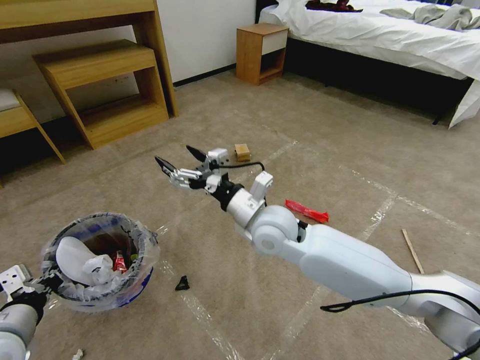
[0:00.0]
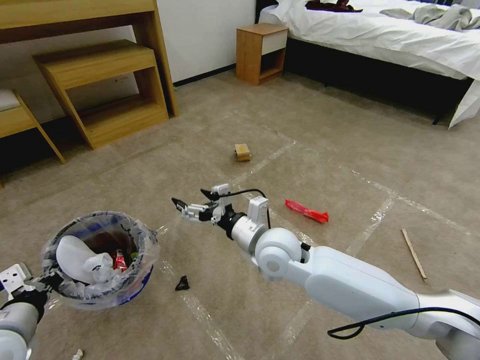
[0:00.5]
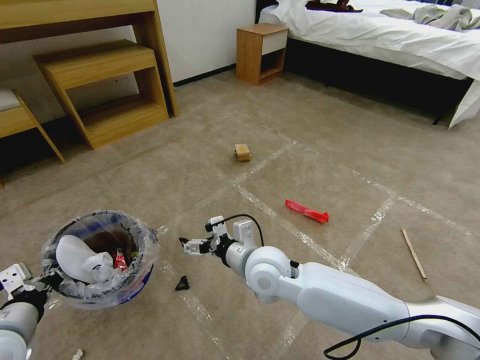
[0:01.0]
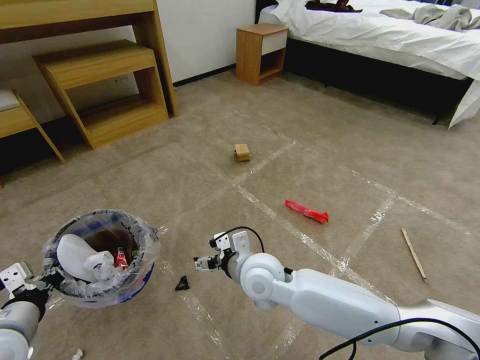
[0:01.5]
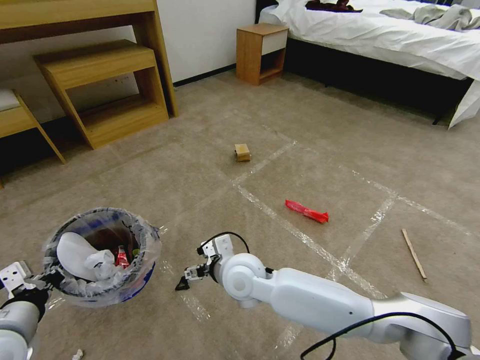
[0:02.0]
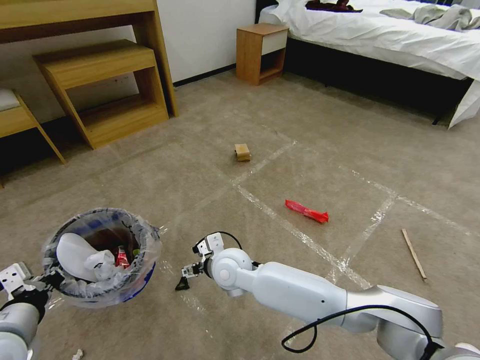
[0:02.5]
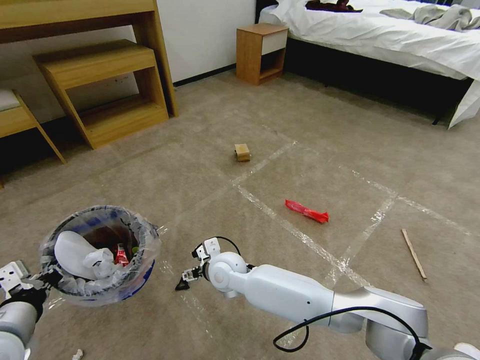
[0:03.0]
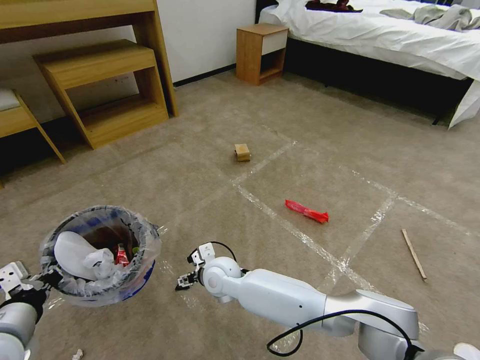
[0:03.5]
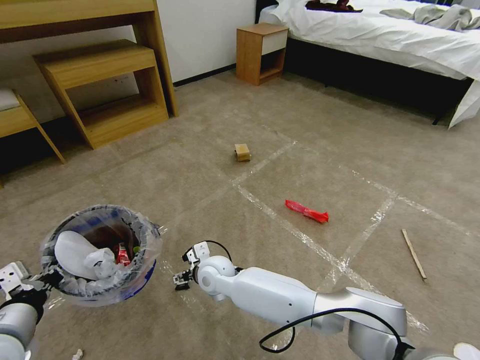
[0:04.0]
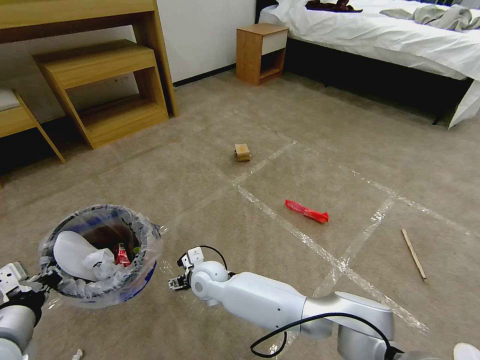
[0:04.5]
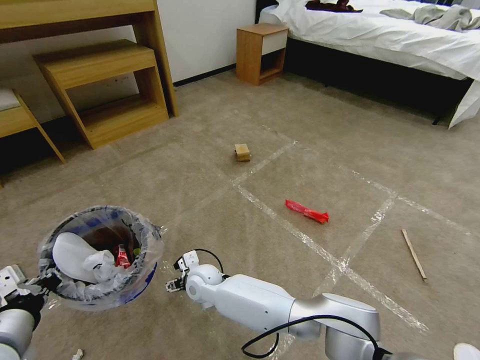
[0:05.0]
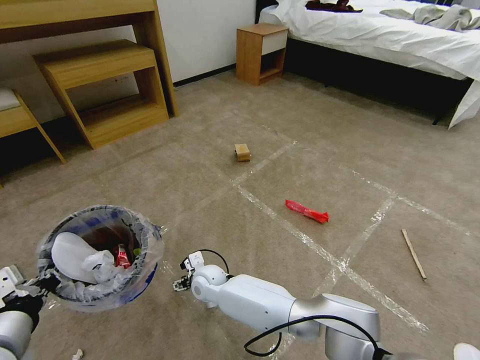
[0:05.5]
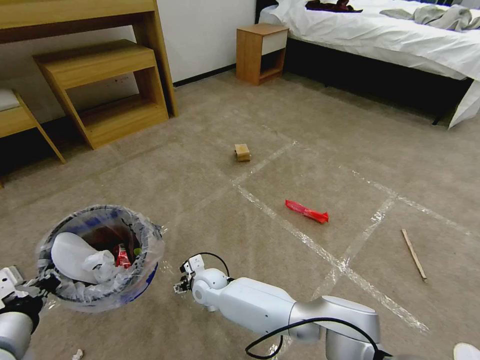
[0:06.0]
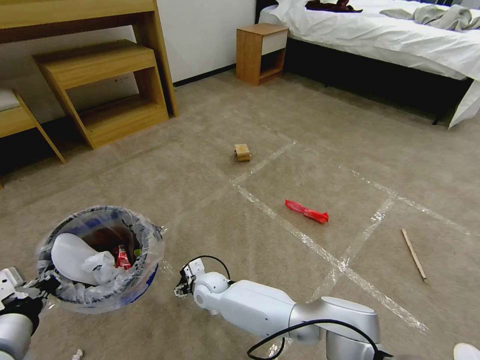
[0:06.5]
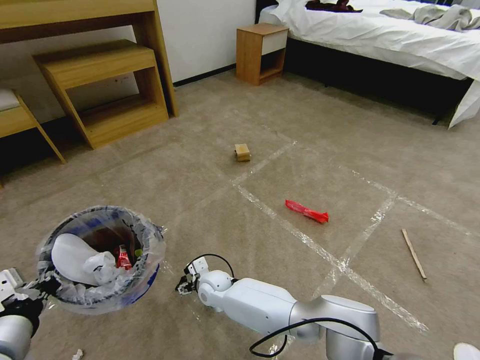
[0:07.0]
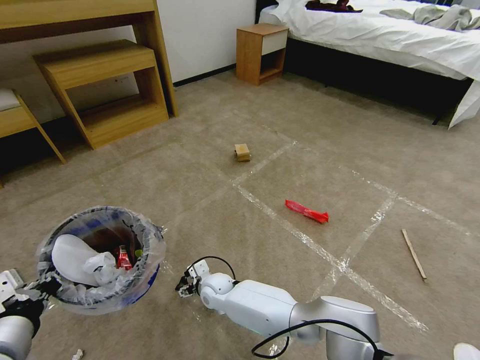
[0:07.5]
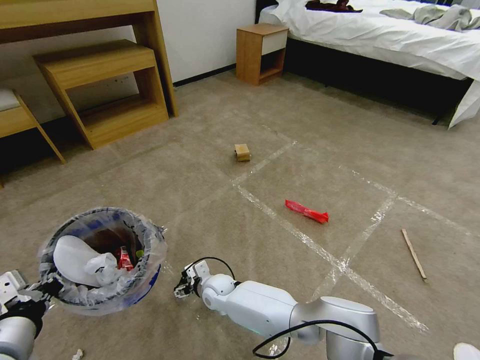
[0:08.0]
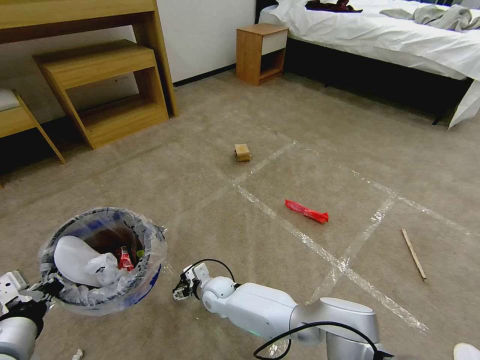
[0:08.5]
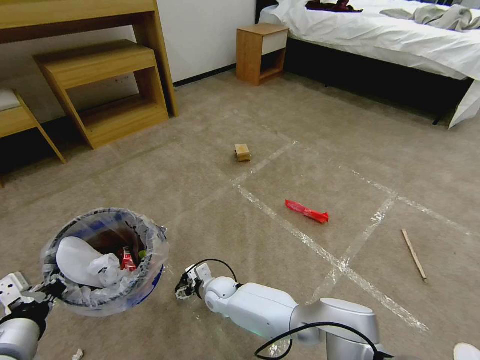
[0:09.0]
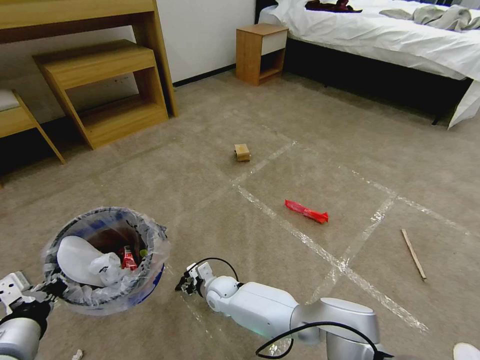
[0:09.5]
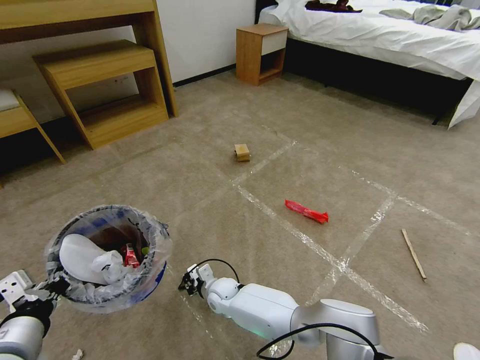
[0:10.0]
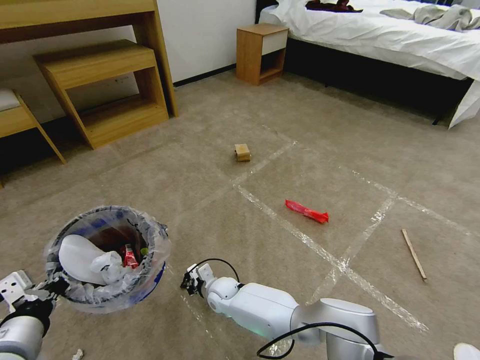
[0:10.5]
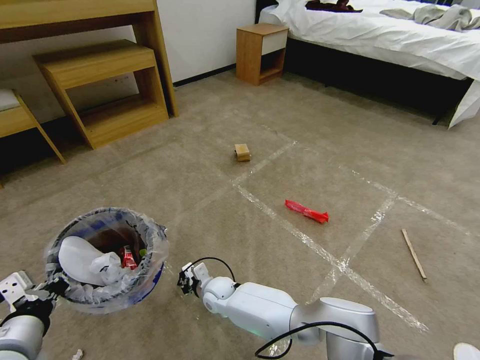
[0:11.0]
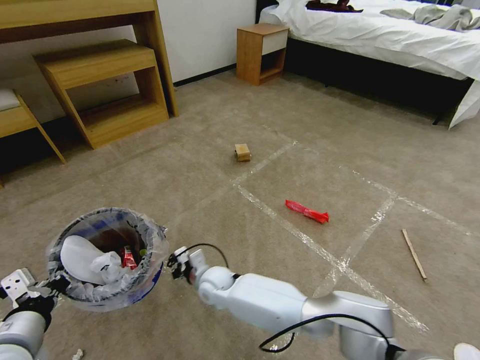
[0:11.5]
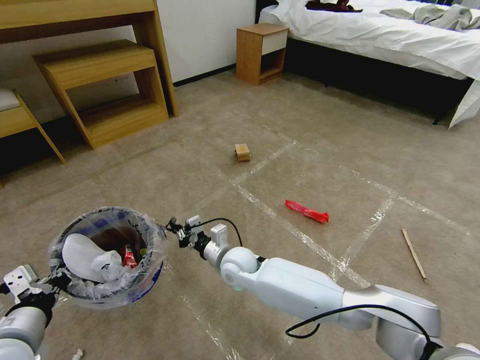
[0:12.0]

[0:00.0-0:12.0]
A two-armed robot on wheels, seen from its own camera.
Task of the whole recording: Pick up the trash bin and place the garbage on the floor into it.
0:00.0 to 0:02.0: The right gripper heads downward, to the left and backward, covering about 15 cm.
0:02.0 to 0:04.0: The right gripper moves downward and to the left, roughly 10 cm.
0:04.0 to 0:06.0: The right gripper heads downward, covering some 5 cm.
0:06.0 to 0:08.0: There are only small adjustments of the grippers.
0:08.0 to 0:10.0: The right gripper closes its fingers.
0:10.0 to 0:12.0: The right gripper moves upward, roughly 15 cm.

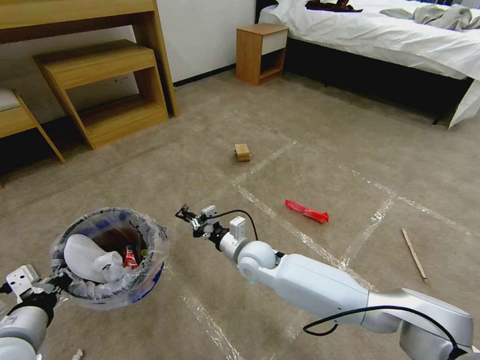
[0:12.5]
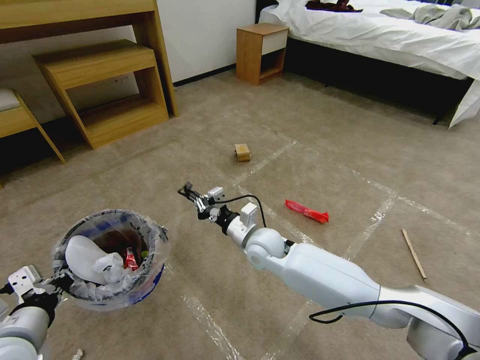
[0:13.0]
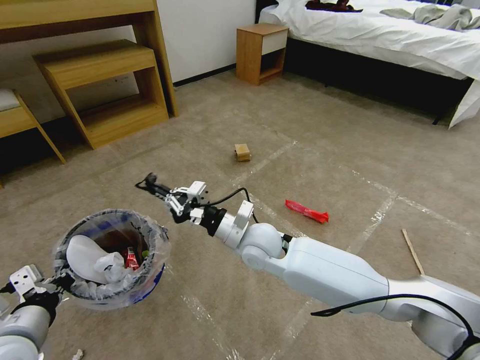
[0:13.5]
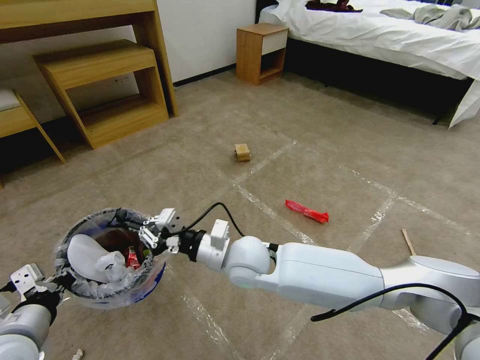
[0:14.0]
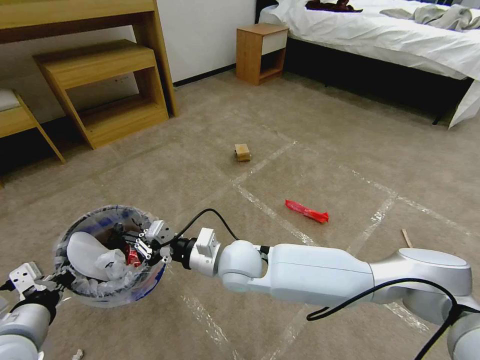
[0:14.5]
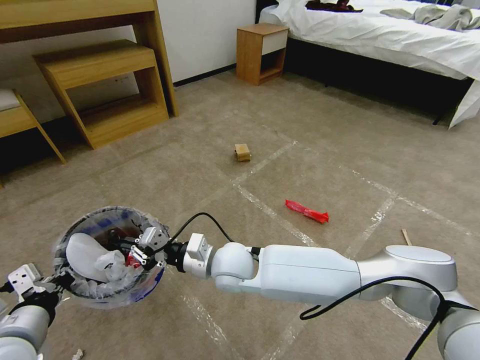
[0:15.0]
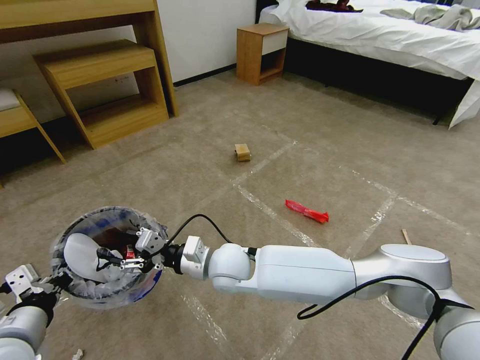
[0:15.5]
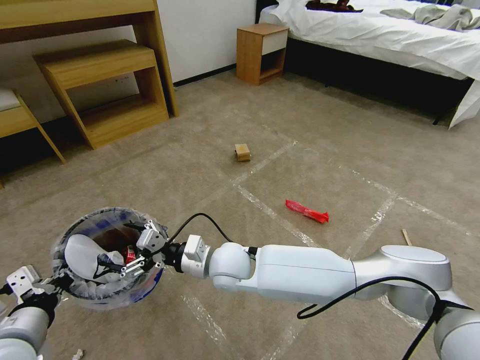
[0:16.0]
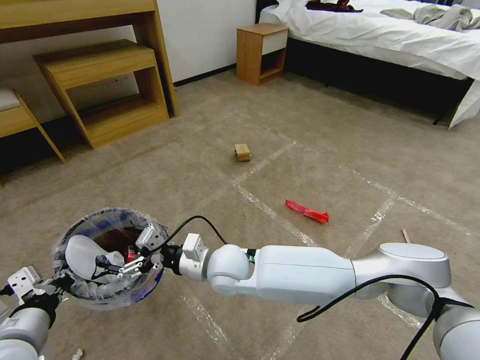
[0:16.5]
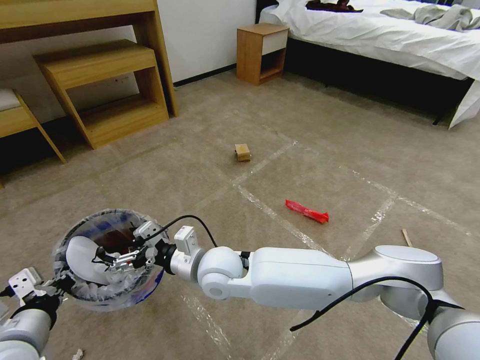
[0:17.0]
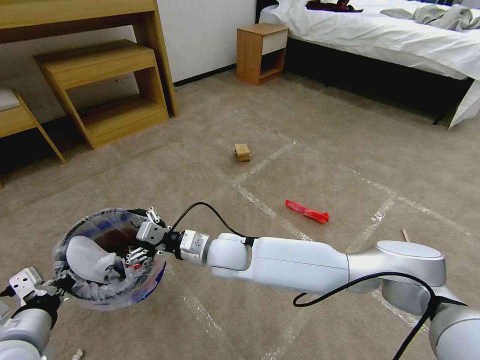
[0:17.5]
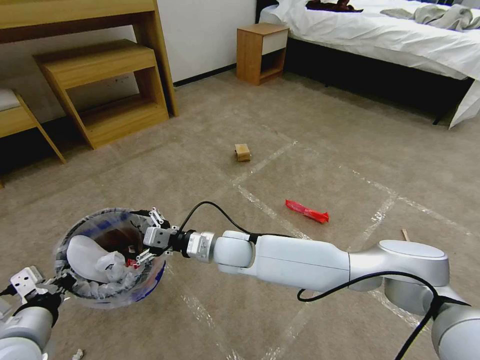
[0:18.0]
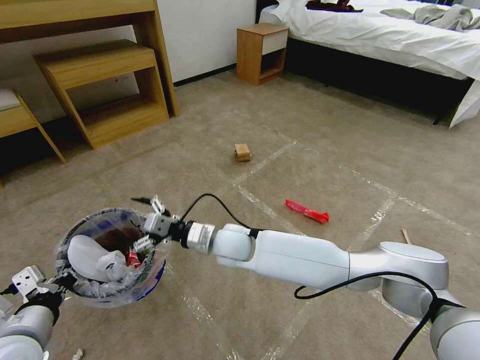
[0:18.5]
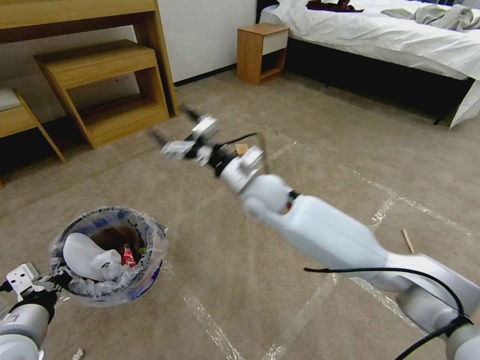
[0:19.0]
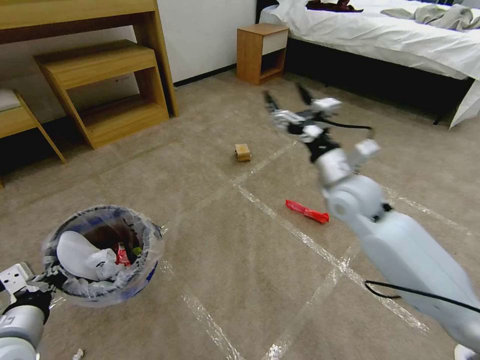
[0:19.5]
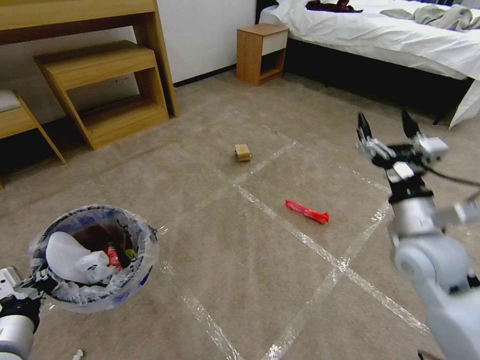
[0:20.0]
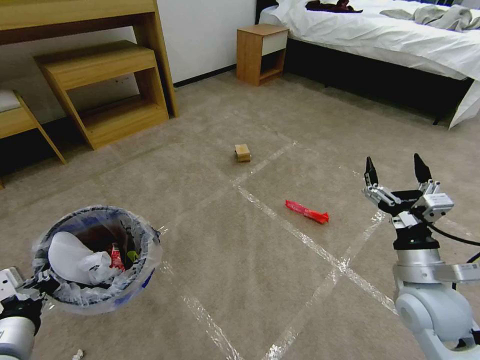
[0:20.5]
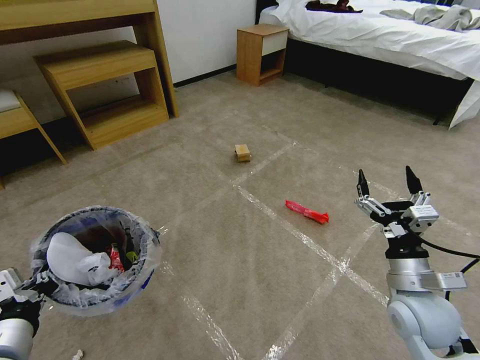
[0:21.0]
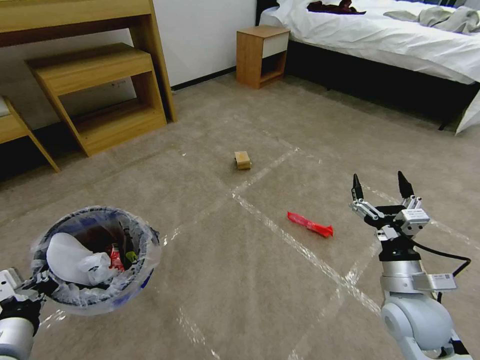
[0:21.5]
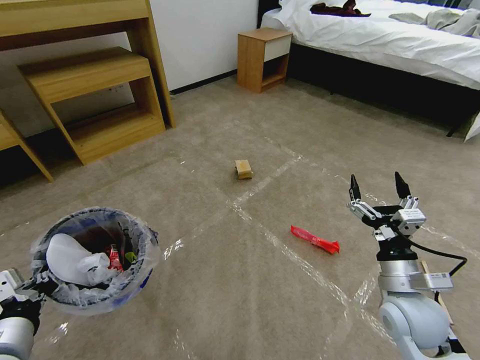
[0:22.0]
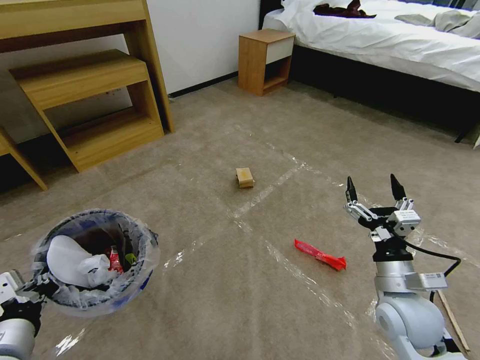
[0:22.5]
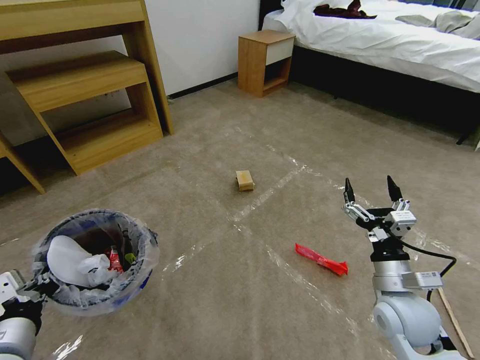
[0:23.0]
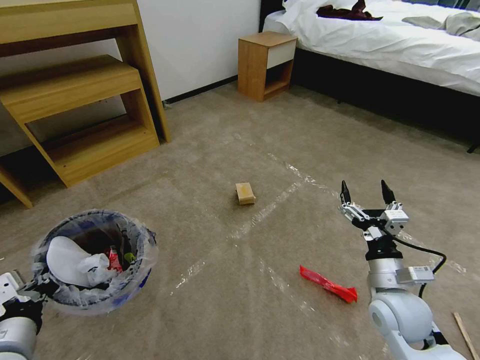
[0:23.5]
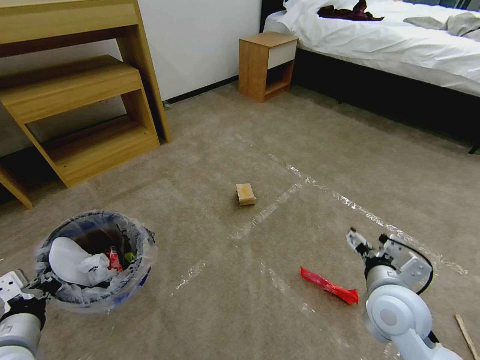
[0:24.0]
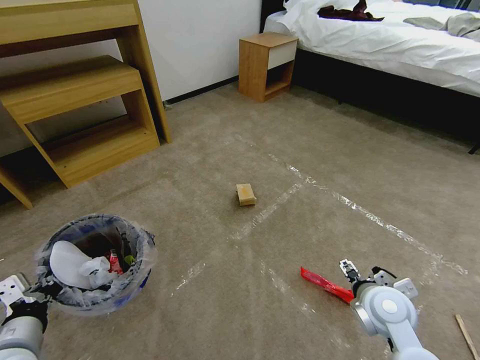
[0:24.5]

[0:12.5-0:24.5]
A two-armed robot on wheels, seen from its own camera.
Task of the whole recording: Pick up the trash bin and place the garbage on the floor into it.
0:12.5 to 0:14.5: The right gripper travels upward and backward by some 10 cm.
0:14.5 to 0:16.5: The right gripper opens.
0:16.5 to 0:18.5: The right gripper heads forward, covering some 5 cm.
0:18.5 to 0:20.5: The right gripper moves to the right and backward, approximately 40 cm.

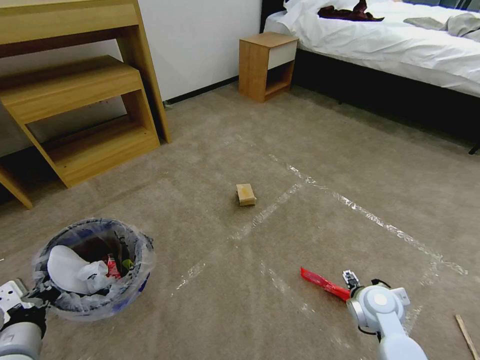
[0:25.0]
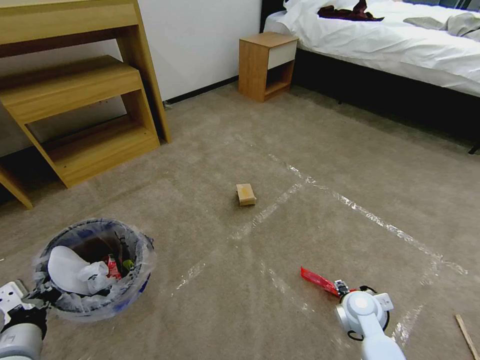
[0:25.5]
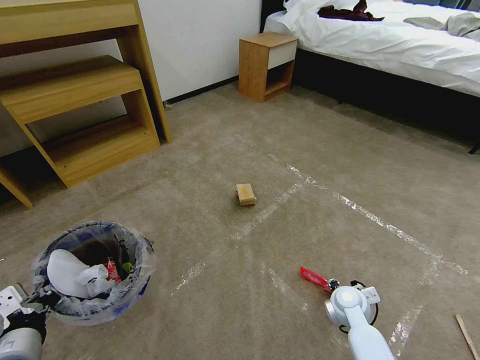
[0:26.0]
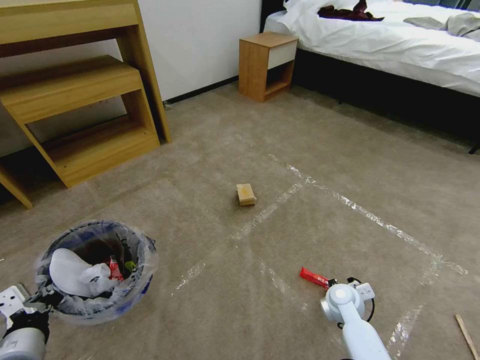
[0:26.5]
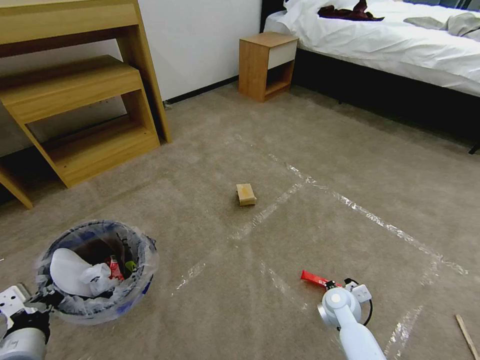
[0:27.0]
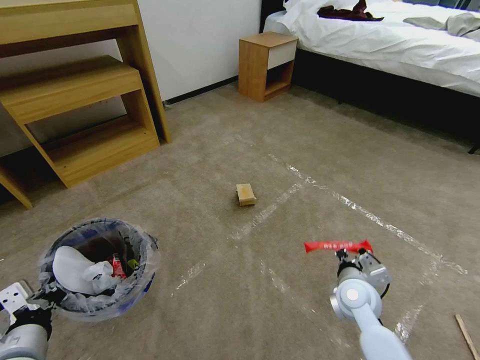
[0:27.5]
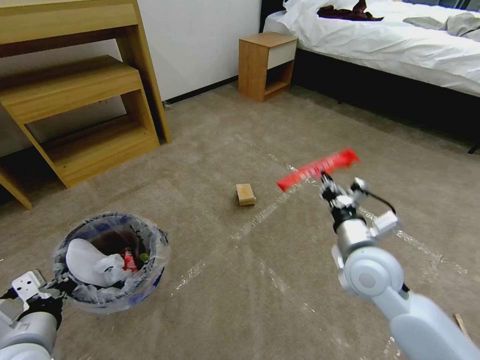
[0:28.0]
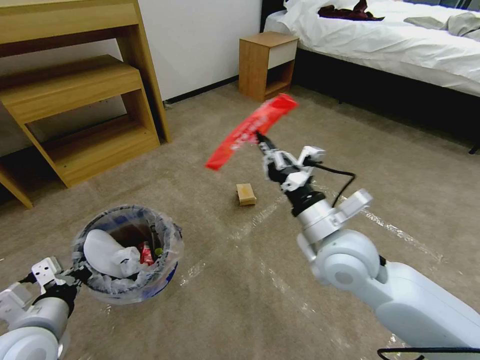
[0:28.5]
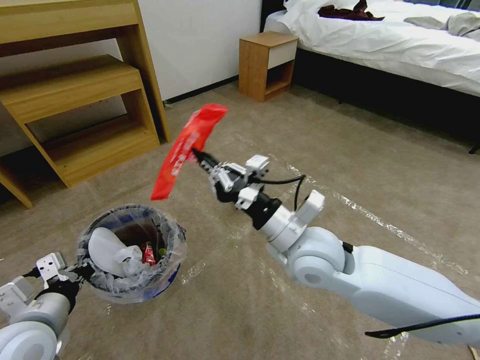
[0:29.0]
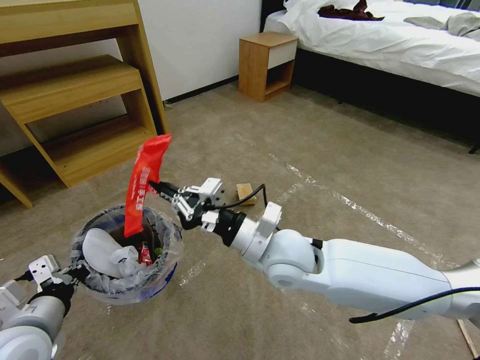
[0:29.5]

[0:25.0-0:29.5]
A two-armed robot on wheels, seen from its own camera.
Task of the whole recording: Pick up the trash bin and place the garbage on the floor into it.
0:25.0 to 0:27.0: The right gripper heads downward, covering some 10 cm, and closes its fingers.
0:27.0 to 0:29.5: The right gripper goes approximately 35 cm upward and to the left. The left gripper ends up approximately 5 cm from where it was.
